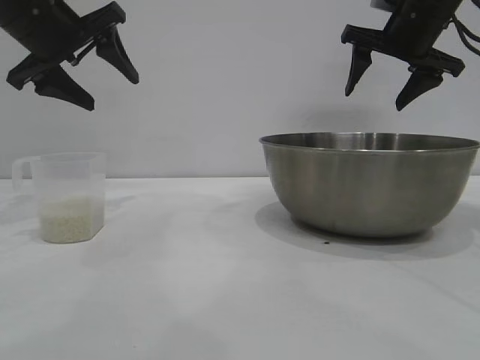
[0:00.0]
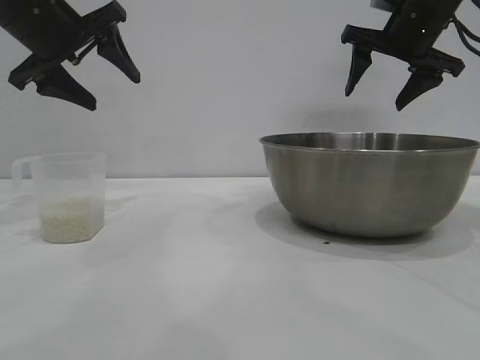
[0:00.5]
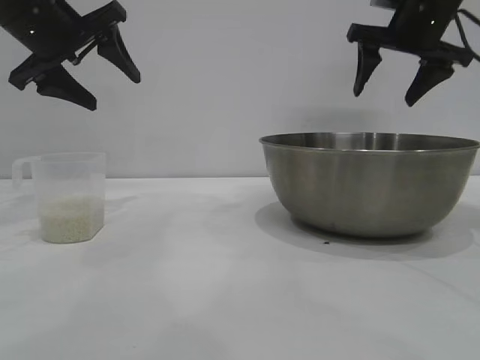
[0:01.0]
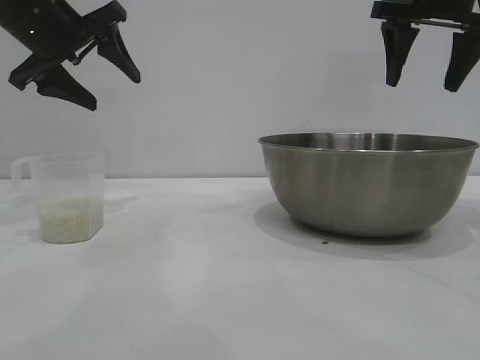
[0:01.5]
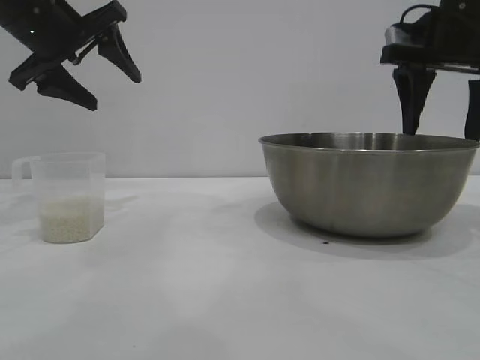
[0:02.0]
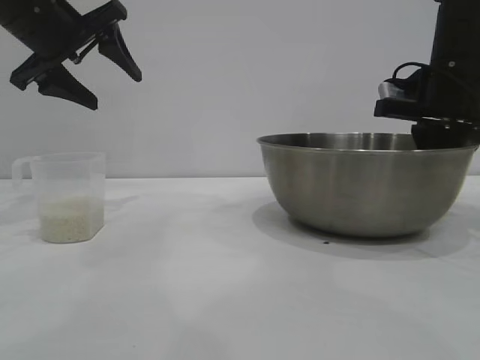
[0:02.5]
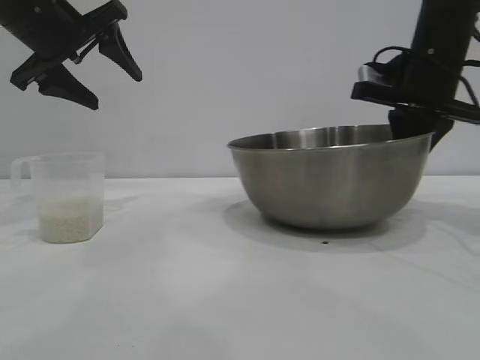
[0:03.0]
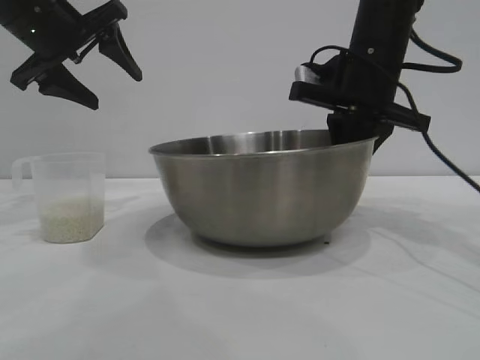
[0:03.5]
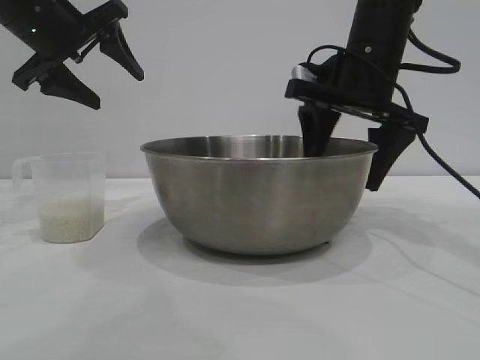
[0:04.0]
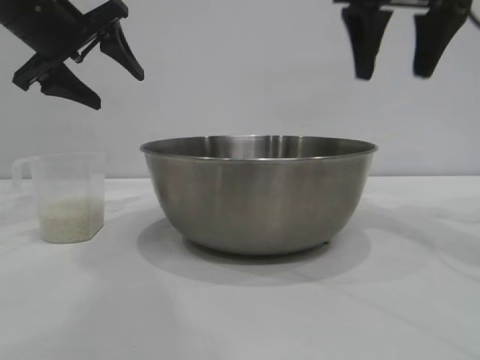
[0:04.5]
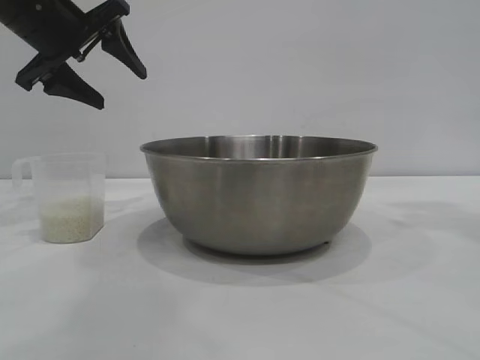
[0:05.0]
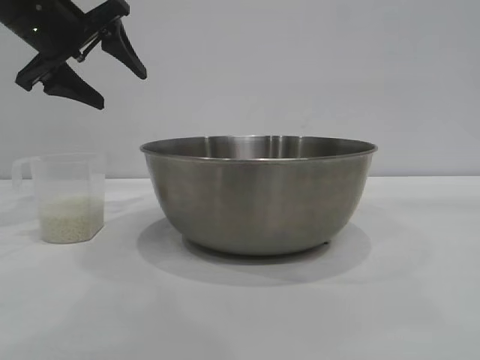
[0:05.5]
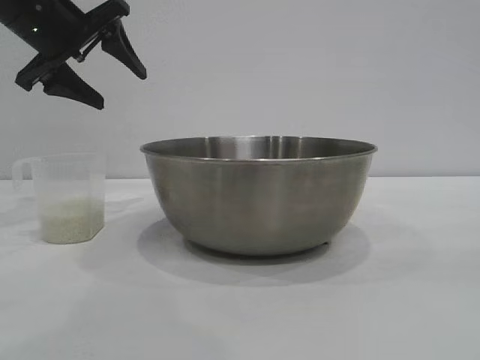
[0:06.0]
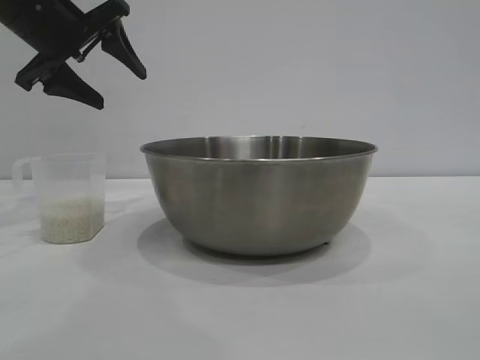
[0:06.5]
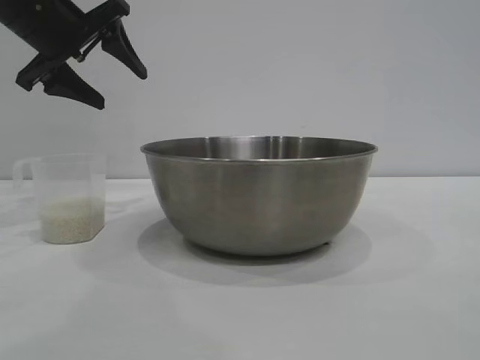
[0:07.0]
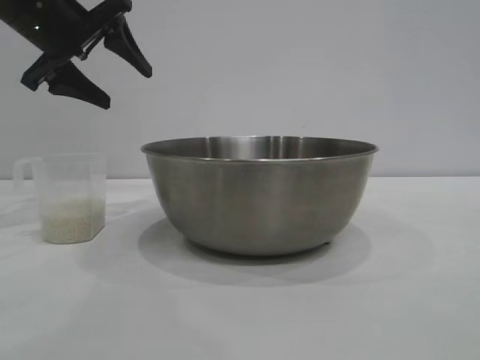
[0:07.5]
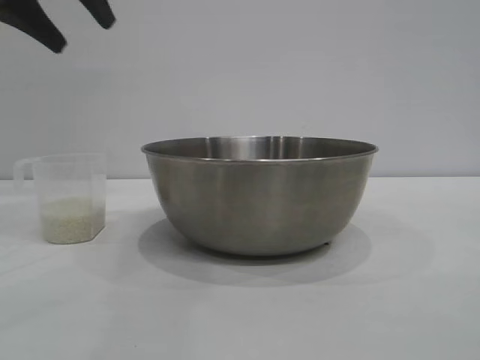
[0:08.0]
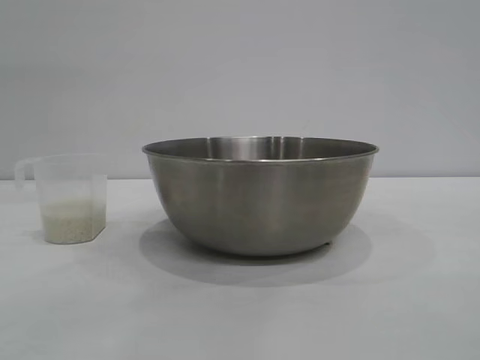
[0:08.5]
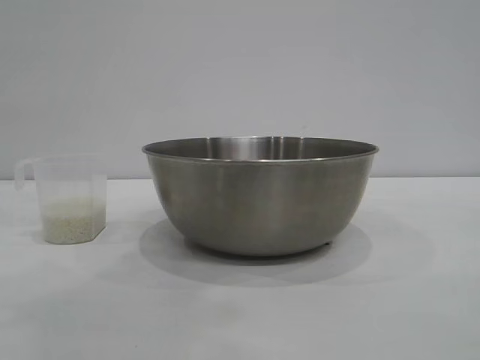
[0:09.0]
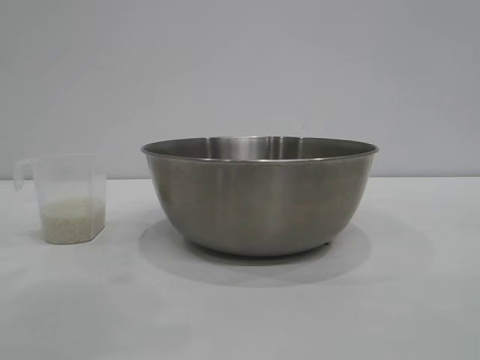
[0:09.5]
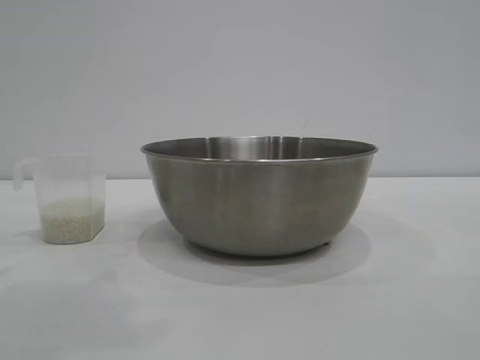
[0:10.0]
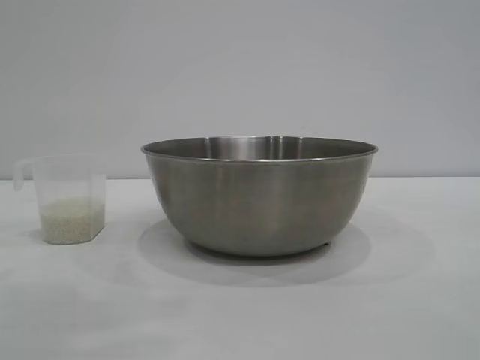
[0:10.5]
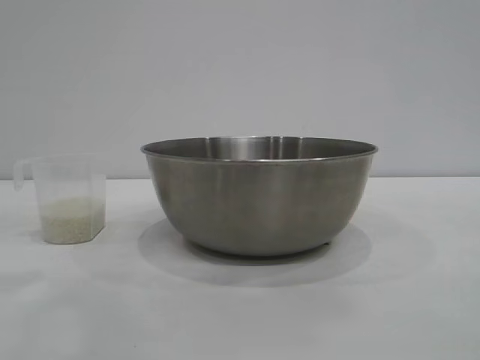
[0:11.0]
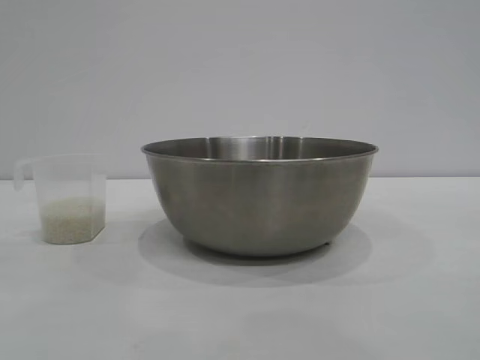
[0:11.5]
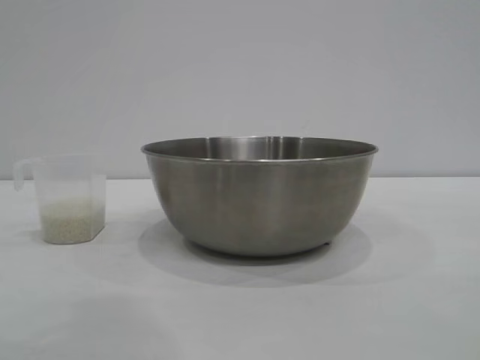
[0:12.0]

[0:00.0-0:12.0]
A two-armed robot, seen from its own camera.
Task of the whole recording: the right gripper grasp the rice container and place it in the center of the table, the left gripper grasp the rice scoop and pour the rice into the rice container.
Step, 0:00.0 to 0:04.0: Move the bowl to the center of view with the right gripper.

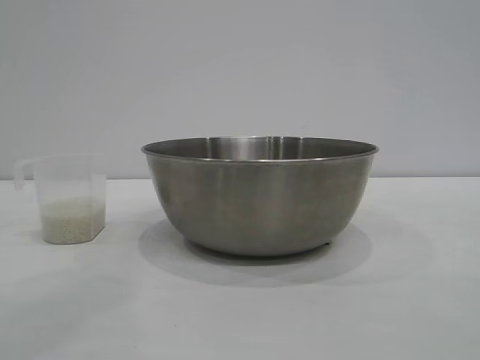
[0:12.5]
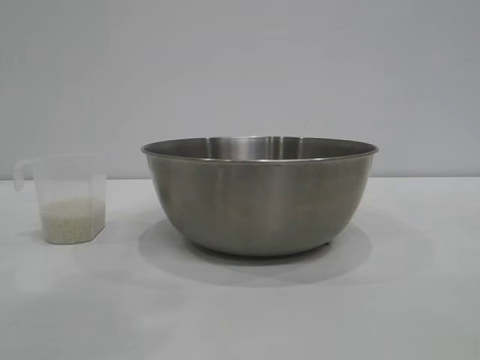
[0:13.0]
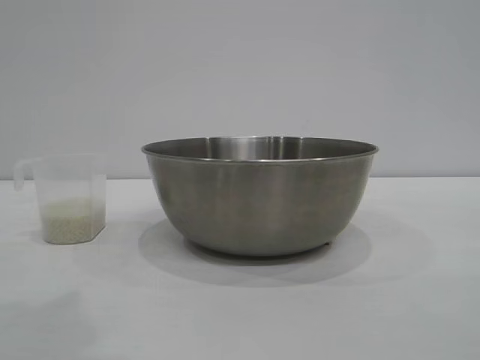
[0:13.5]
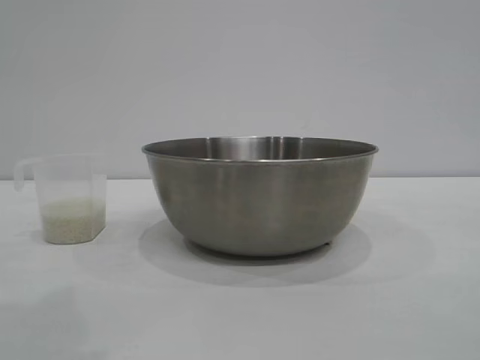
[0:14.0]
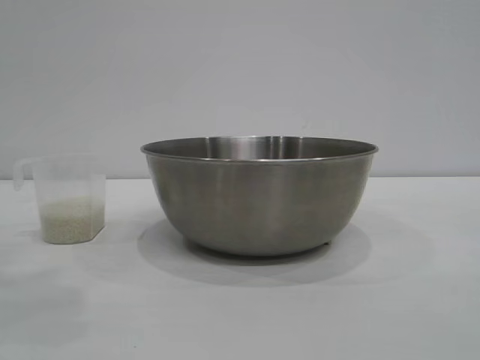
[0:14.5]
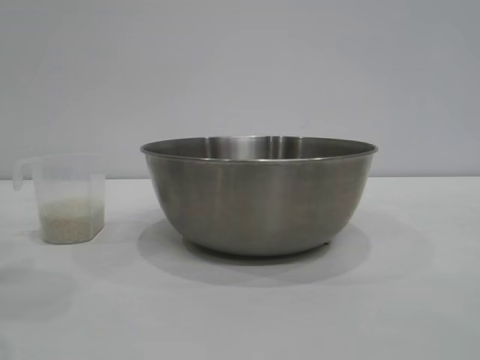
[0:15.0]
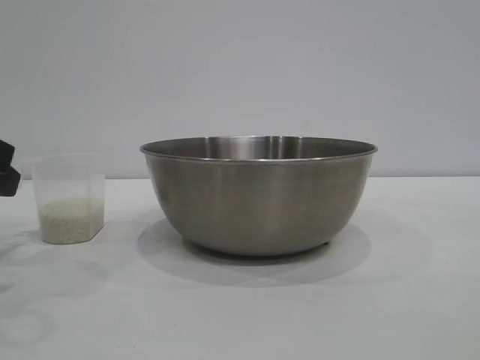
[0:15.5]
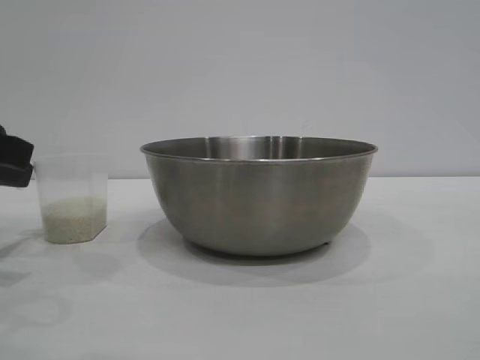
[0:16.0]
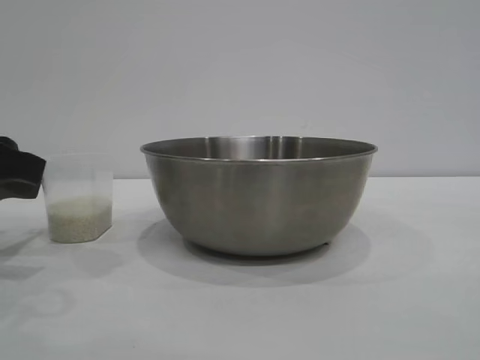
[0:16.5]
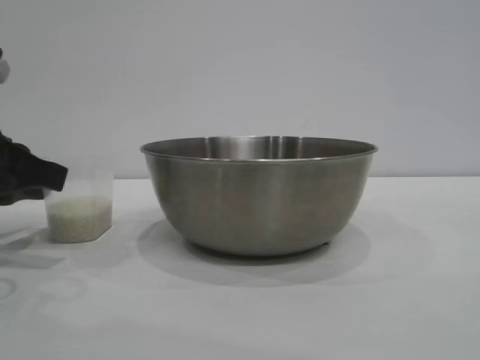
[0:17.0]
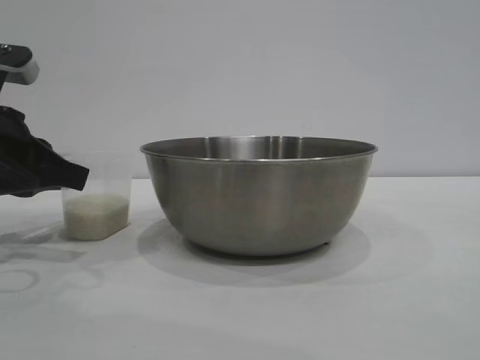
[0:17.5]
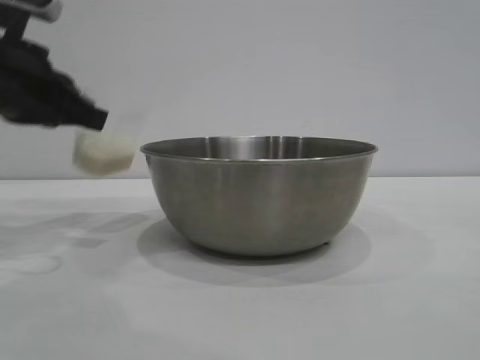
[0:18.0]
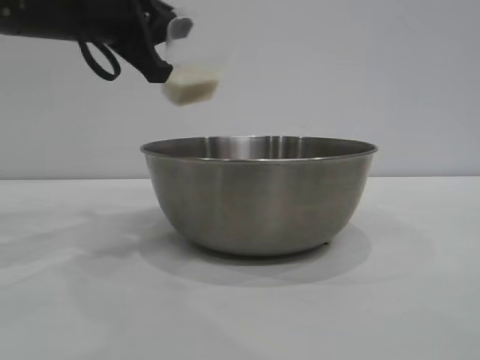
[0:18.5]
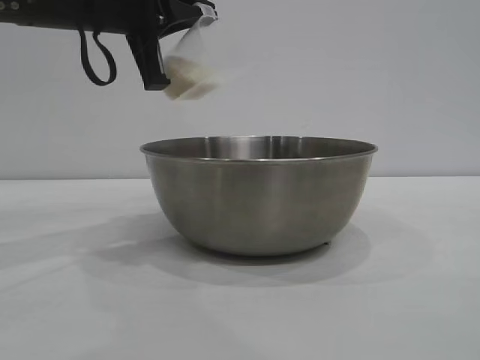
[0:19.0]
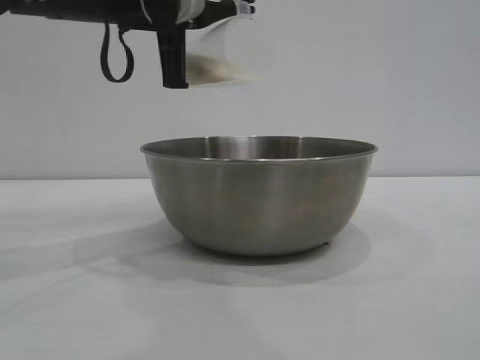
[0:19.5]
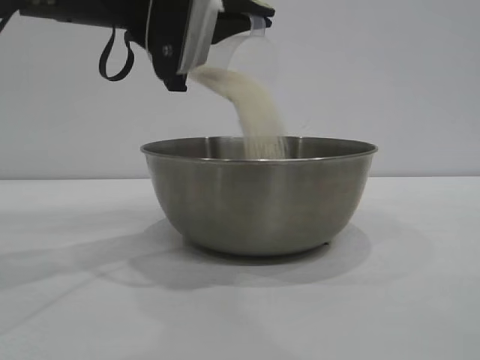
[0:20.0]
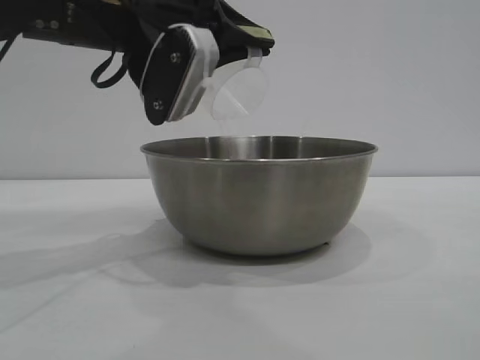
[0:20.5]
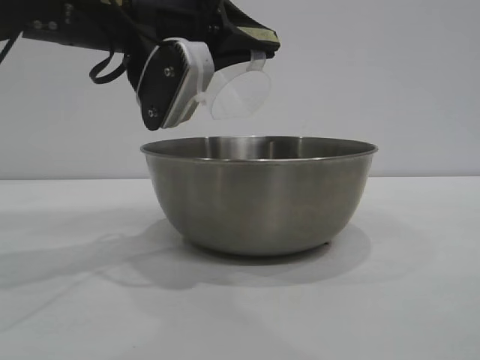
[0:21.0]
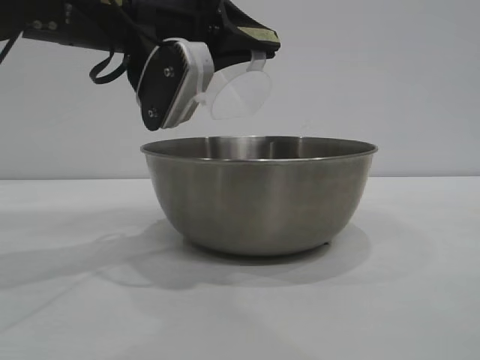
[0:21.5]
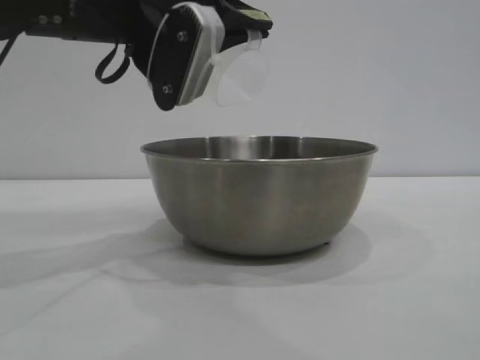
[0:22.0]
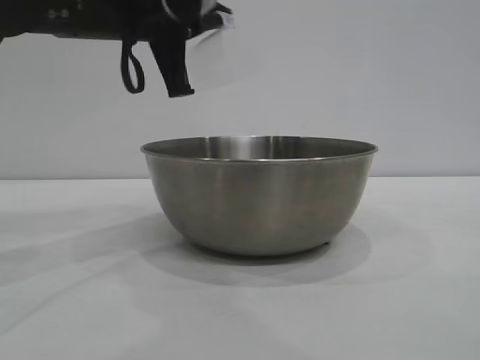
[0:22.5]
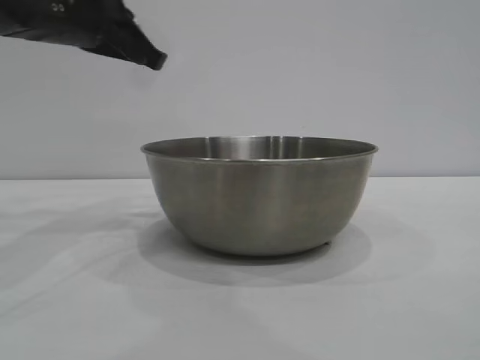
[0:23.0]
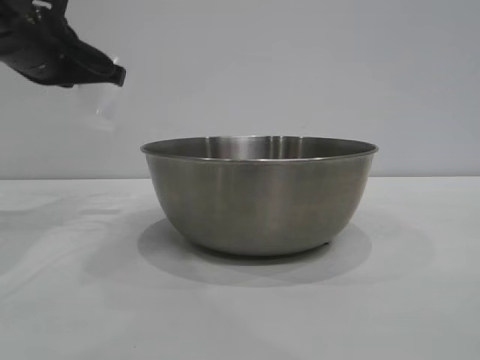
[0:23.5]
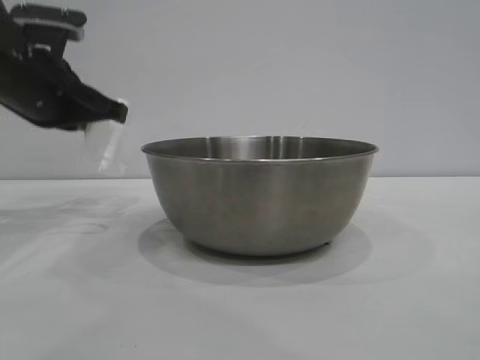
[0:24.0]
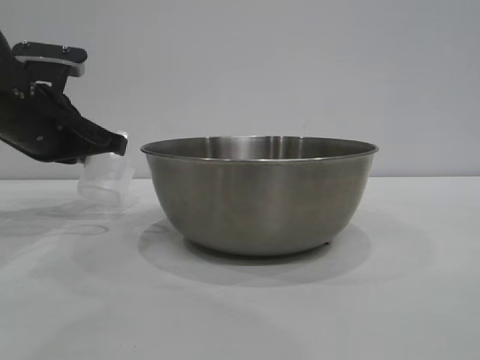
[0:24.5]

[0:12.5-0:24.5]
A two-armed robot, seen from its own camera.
Task of the whole recording: the right gripper grasp the rice container and place it in the center of the table, the left gripper grasp the rice scoop and pour the rice into the rice container.
Step, 0:12.5 to 0:18.0: Pick up the cup with rice in it with the left gripper.
Step, 0:18.5 to 0:22.0: Pour the rice from the cup into the bowl with the left gripper.
